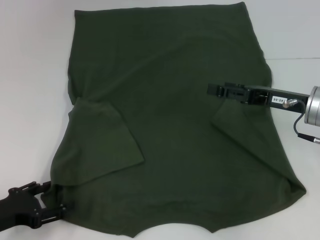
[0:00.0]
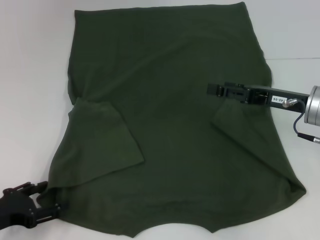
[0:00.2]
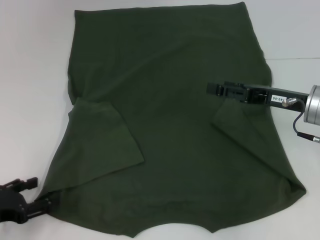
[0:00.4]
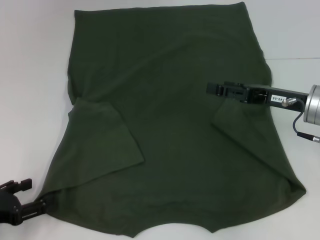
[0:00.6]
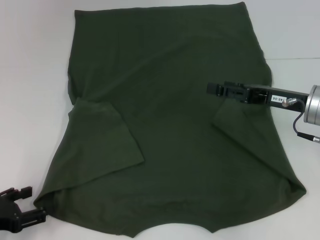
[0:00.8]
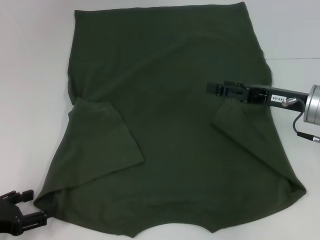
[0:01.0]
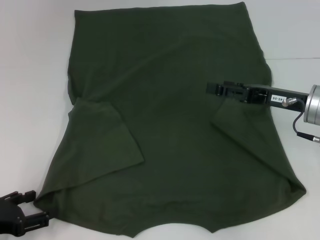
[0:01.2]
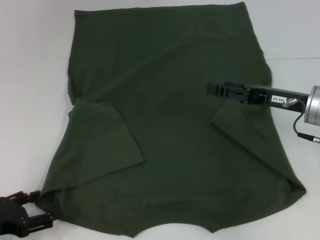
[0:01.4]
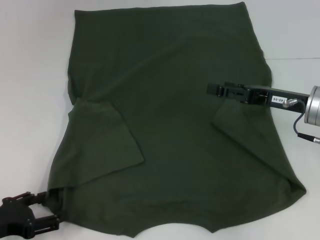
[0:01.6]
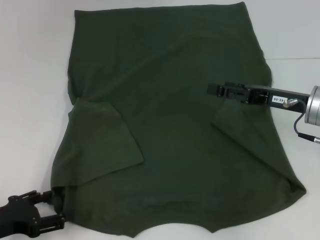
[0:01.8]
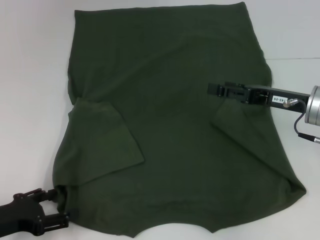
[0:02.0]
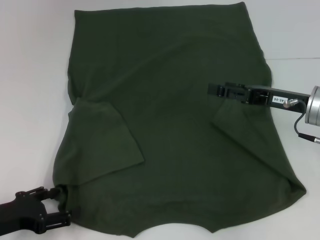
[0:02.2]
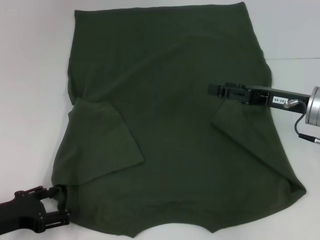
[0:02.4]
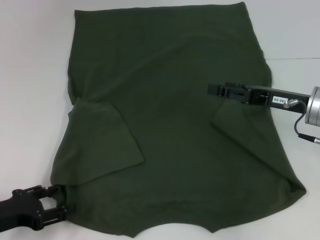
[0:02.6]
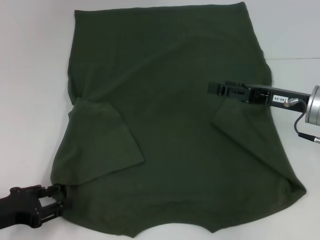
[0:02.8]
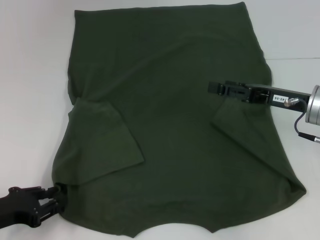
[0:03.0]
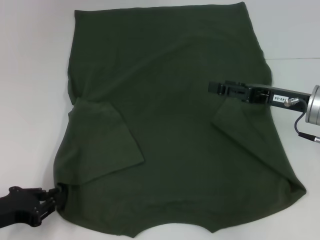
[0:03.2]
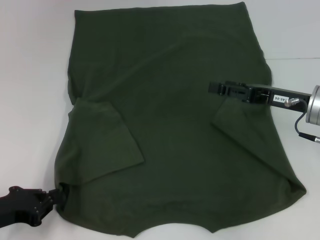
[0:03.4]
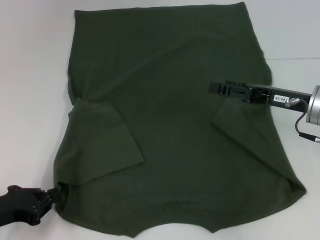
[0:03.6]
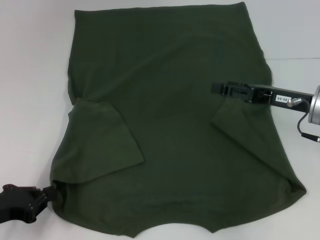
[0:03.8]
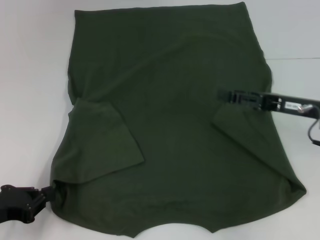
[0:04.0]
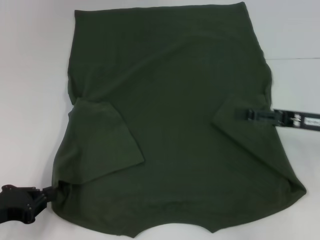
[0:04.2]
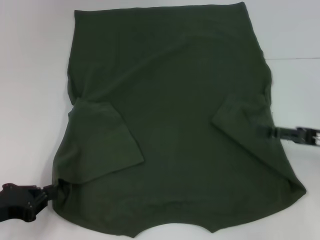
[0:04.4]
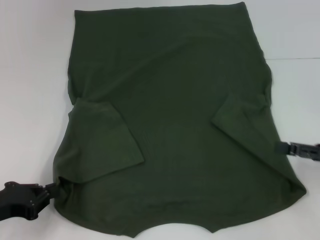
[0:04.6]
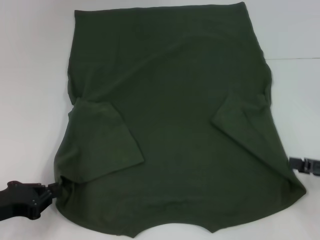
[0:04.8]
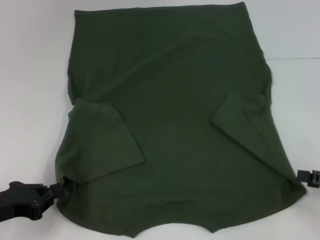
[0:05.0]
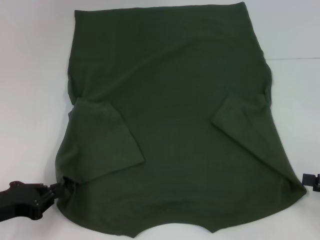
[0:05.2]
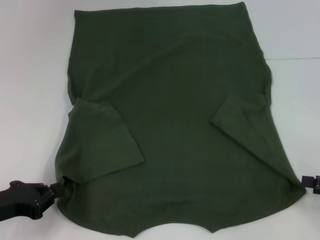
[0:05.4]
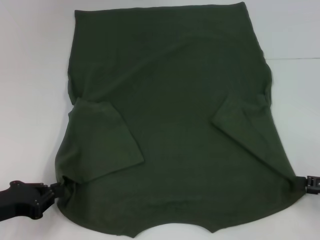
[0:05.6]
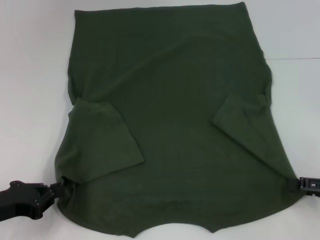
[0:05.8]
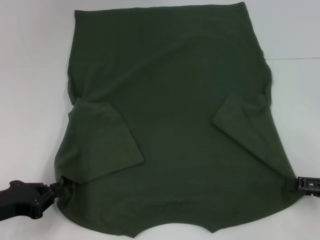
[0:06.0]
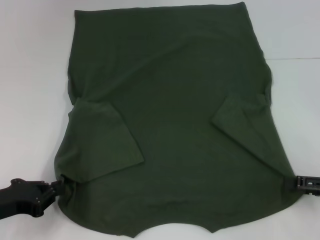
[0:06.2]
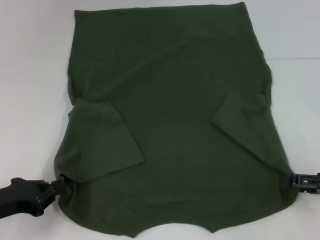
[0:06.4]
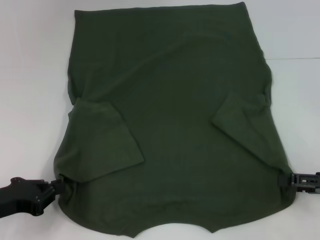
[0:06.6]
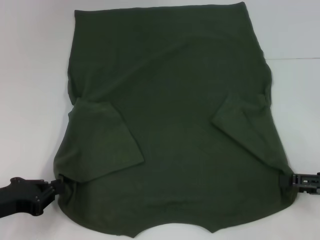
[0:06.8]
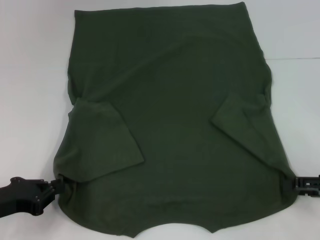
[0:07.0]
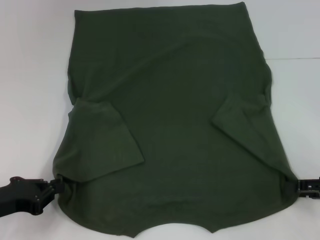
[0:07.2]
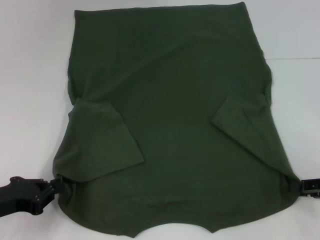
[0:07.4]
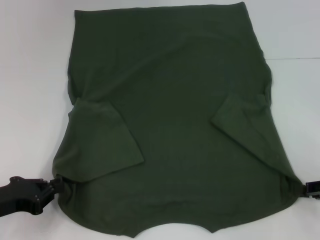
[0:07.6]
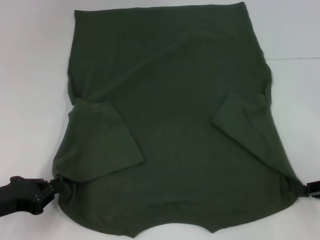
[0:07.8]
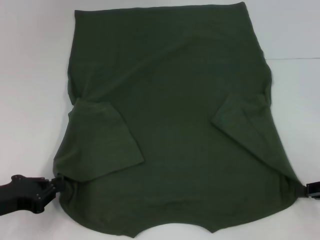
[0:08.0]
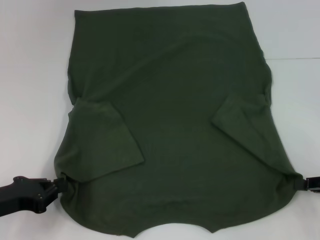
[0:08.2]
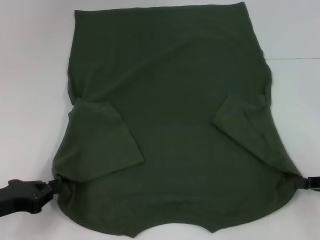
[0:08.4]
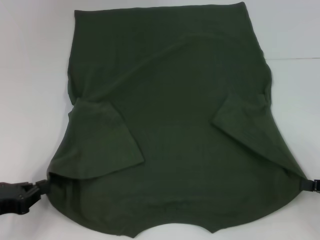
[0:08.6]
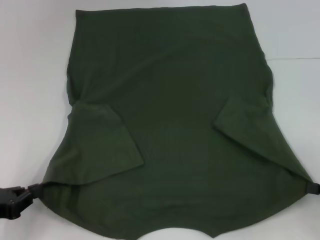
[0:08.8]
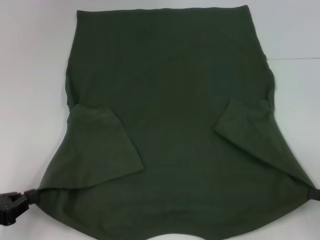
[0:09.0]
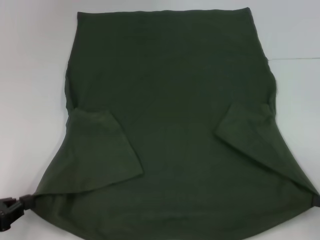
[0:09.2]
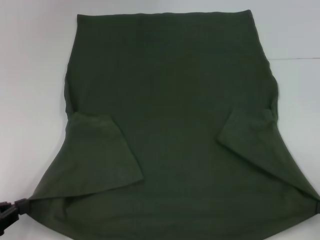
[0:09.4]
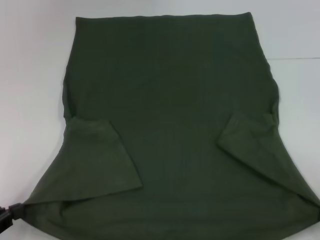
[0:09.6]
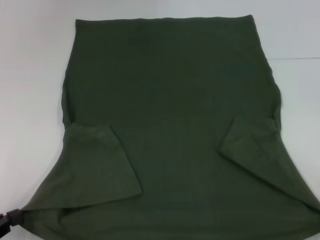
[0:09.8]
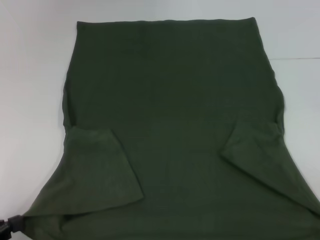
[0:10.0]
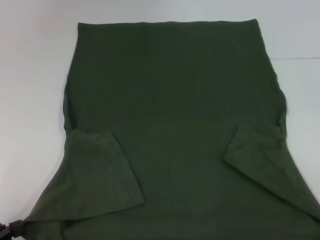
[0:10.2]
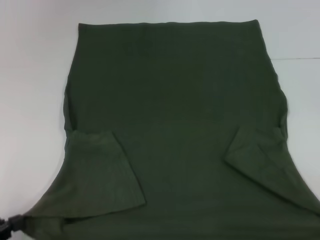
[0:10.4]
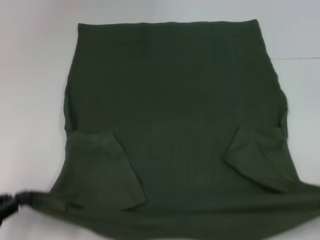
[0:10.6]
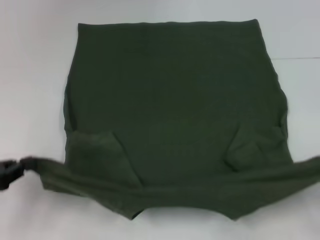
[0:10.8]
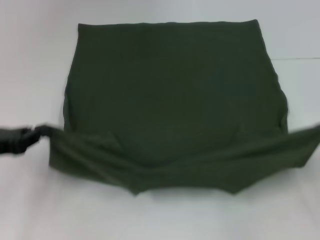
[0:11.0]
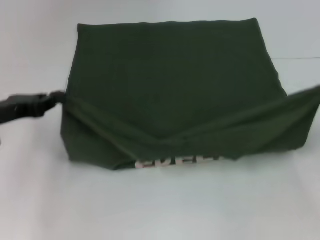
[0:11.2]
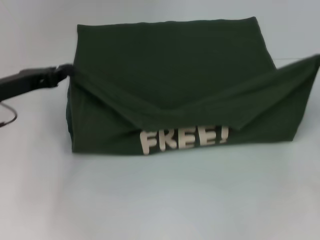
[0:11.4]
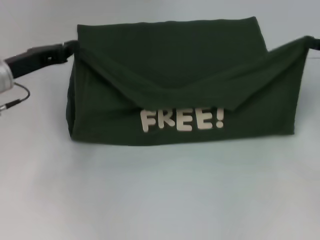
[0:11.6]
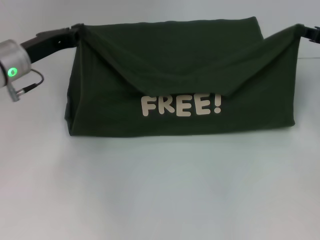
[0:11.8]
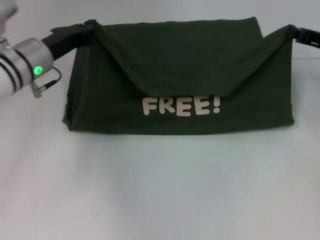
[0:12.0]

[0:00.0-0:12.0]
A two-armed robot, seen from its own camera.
Step, 0:00.0 to 0:03.6: Grab the bottom left corner with your left hand.
Step, 0:03.8 to 0:08.2: Grab the bottom right corner with your right hand.
0:00.0 to 0:03.0: The grippers stay close to where they were, moving slightly.
0:03.0 to 0:04.4: The left gripper closes its fingers. Meanwhile the right gripper shifts approximately 10 cm to the right and backward.
0:04.4 to 0:06.0: The right gripper ends up about 5 cm from where it was.
0:07.6 to 0:09.0: The right gripper shifts by roughly 5 cm, and closes.
0:09.0 to 0:10.4: The left gripper moves some 5 cm. Meanwhile the right gripper travels backward by roughly 10 cm.
0:10.4 to 0:12.0: The right gripper moves forward, approximately 30 cm. The left gripper moves forward and to the right, roughly 30 cm.

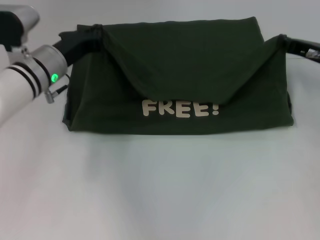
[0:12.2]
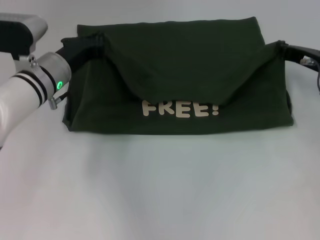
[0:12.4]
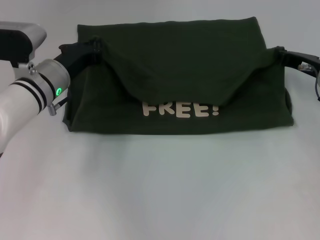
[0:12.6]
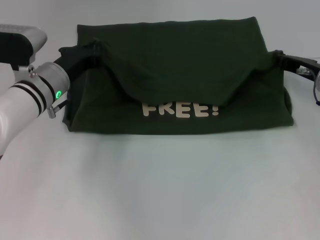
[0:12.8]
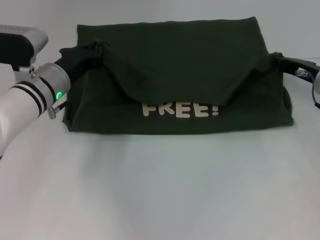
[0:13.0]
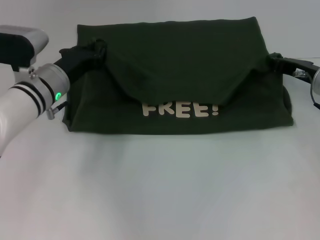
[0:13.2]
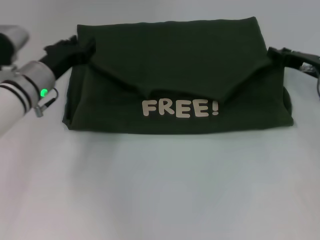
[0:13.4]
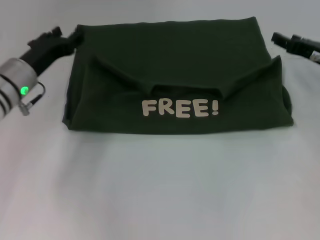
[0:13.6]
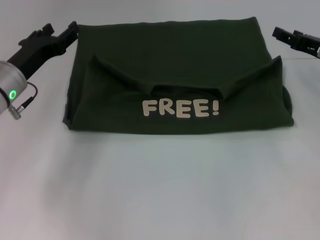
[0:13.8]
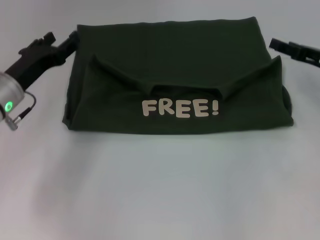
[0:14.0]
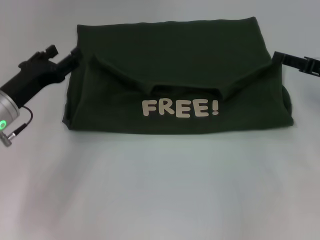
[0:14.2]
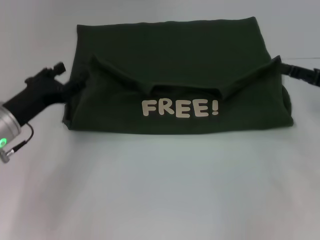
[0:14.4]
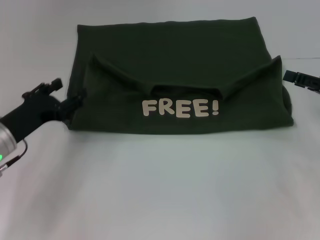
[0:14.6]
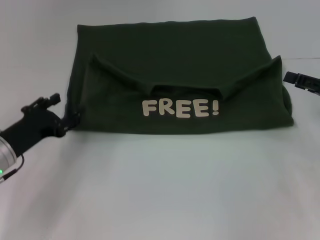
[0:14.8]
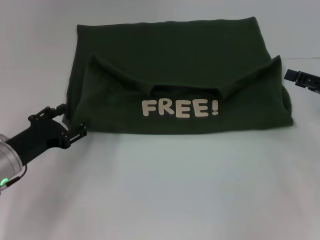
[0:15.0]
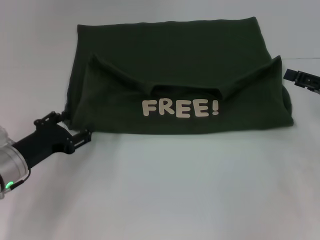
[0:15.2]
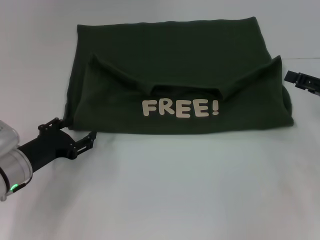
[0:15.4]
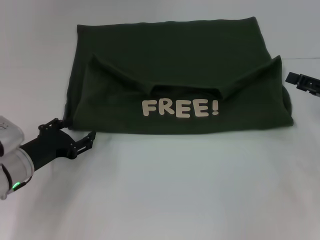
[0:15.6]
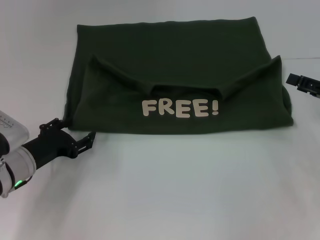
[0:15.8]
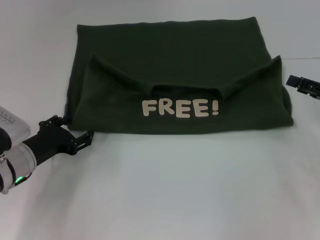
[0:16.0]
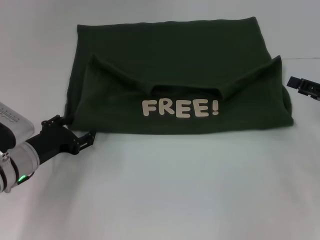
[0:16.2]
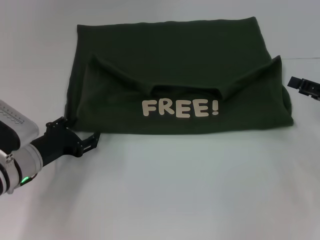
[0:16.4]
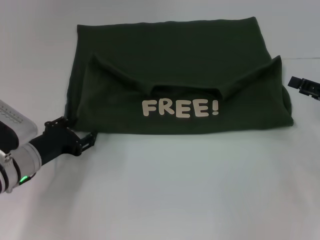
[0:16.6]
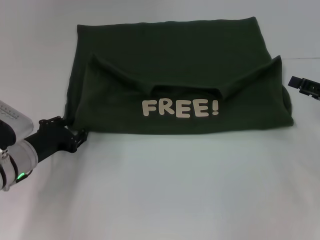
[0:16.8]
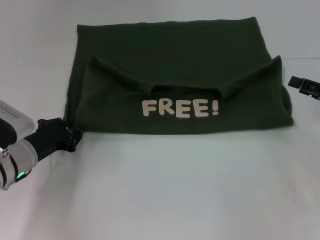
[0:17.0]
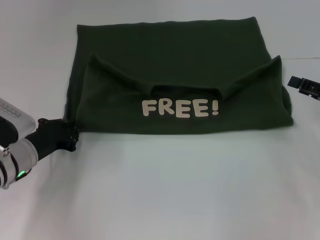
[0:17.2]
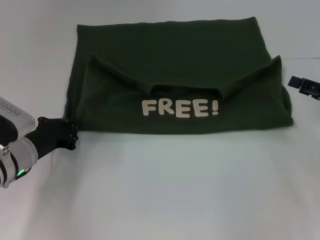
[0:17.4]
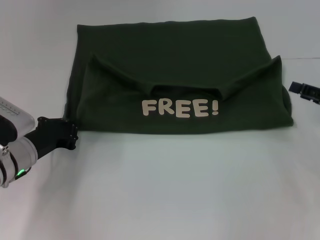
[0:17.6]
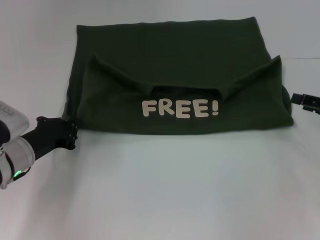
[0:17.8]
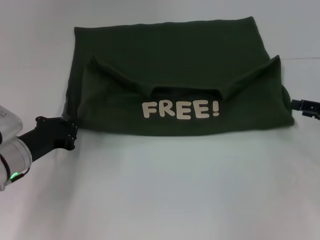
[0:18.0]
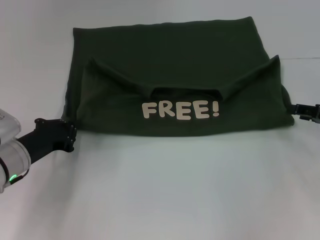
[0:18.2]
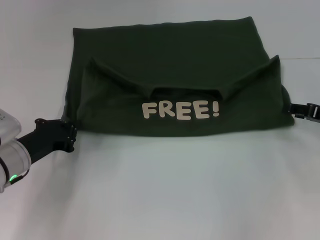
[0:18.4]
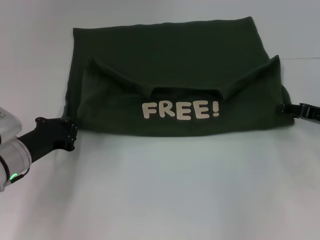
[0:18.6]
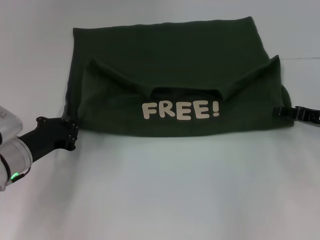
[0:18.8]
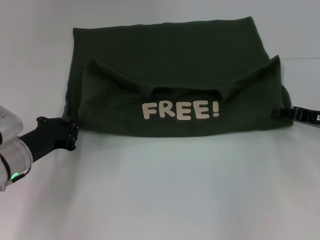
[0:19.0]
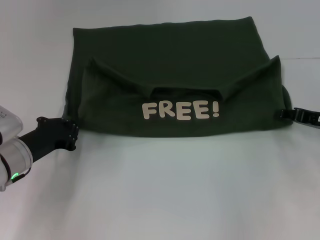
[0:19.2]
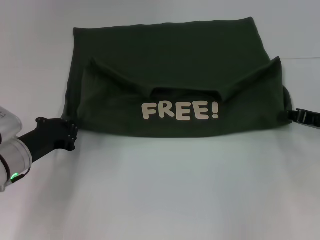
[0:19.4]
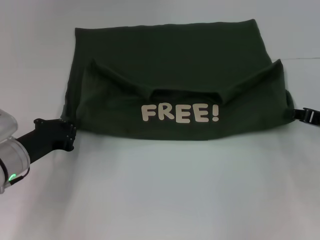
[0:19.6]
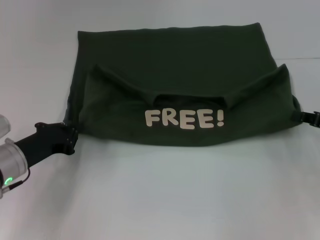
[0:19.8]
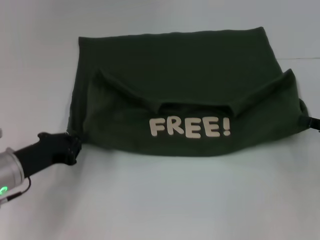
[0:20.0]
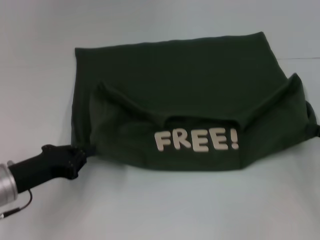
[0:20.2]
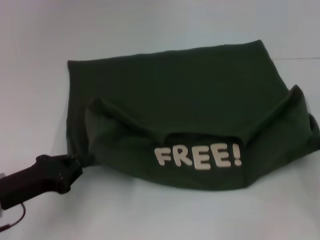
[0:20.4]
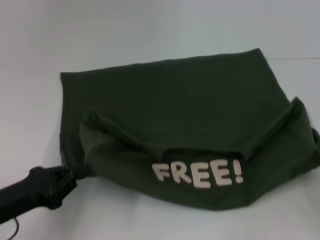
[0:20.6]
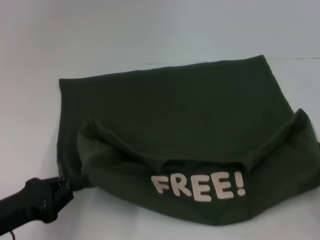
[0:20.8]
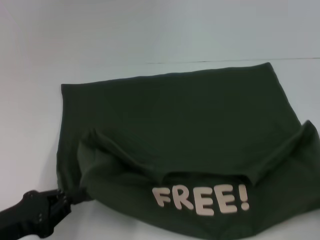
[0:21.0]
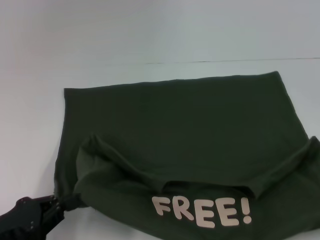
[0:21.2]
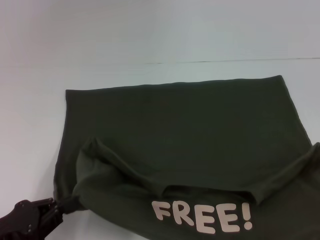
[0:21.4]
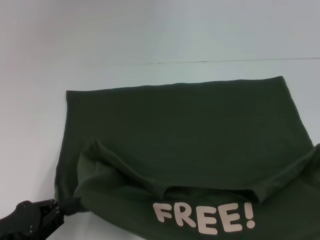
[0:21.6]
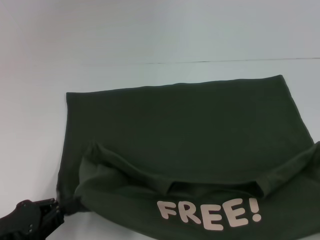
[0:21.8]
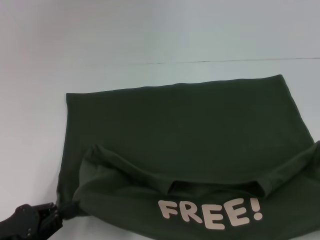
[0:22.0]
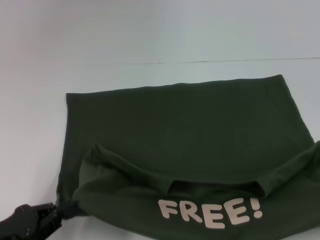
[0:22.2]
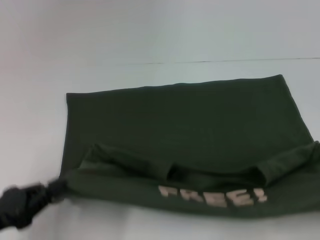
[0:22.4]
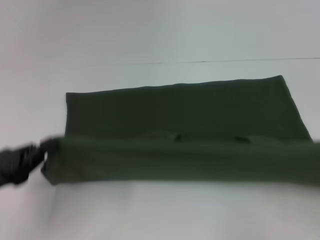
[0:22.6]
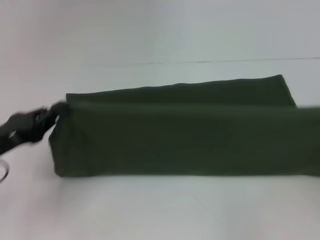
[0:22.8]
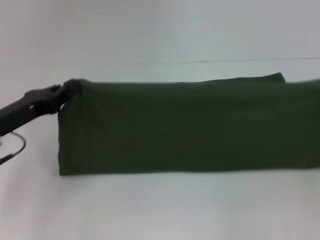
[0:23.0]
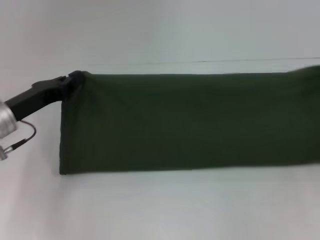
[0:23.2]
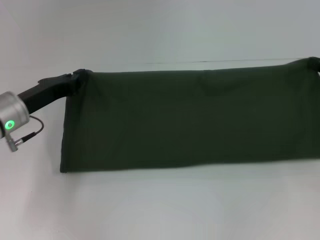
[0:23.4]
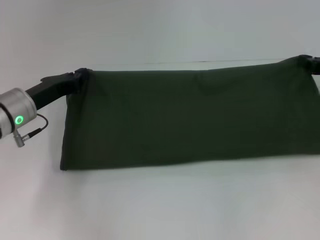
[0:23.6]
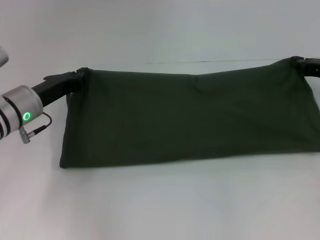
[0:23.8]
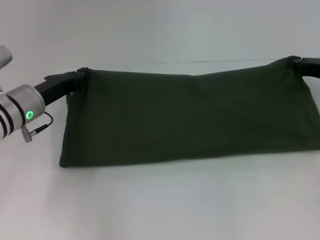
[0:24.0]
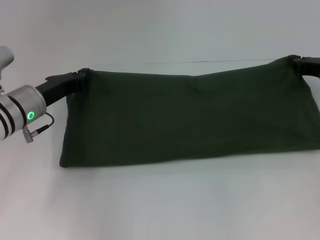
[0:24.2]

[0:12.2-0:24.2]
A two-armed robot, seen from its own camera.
Step, 0:13.8 to 0:21.4: Pull the clothes with your left hand.
Step, 0:13.8 to 0:21.4: Pull the clothes with your right hand.
0:12.2 to 0:13.8: The right gripper opens. The left gripper travels to the left by some 5 cm, and opens up.
0:13.8 to 0:15.2: The right gripper goes approximately 5 cm backward. Meanwhile the left gripper goes some 10 cm backward and downward.
0:15.2 to 0:16.6: The grippers move only a little.
0:16.6 to 0:18.2: The left gripper closes.
0:18.2 to 0:19.8: The right gripper closes.
0:19.8 to 0:21.2: The grippers both shift backward by some 15 cm.
0:21.2 to 0:22.6: The left gripper changes place by approximately 5 cm. Meanwhile the right gripper shifts by some 5 cm.
0:22.6 to 0:24.2: The left gripper shifts approximately 20 cm forward and to the right, while the right gripper moves forward and to the left, roughly 25 cm.
